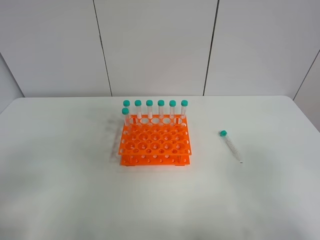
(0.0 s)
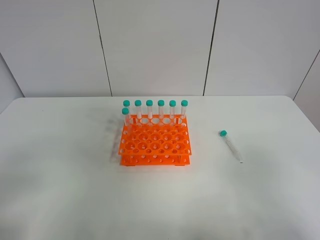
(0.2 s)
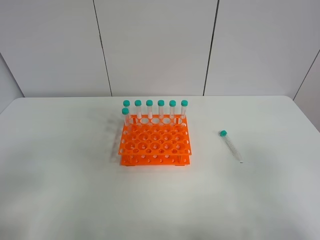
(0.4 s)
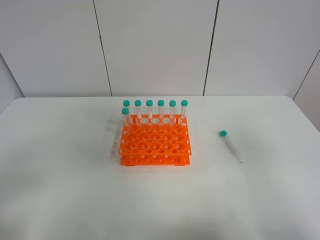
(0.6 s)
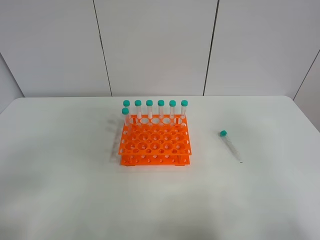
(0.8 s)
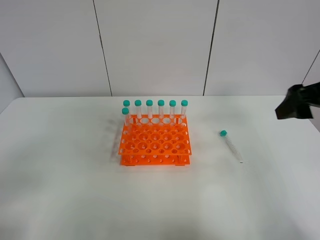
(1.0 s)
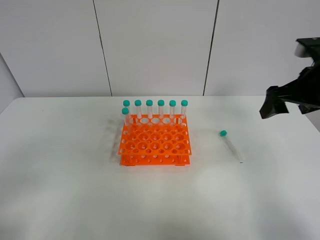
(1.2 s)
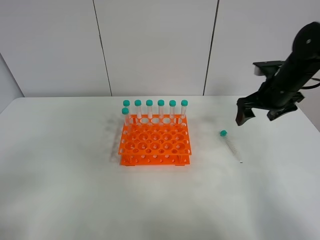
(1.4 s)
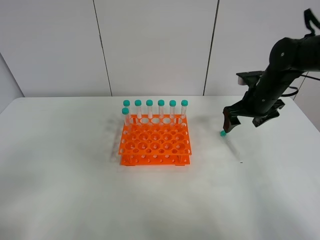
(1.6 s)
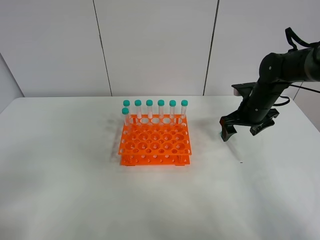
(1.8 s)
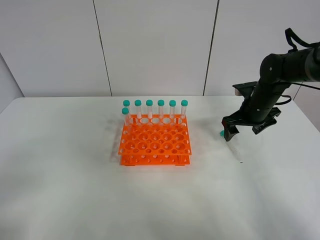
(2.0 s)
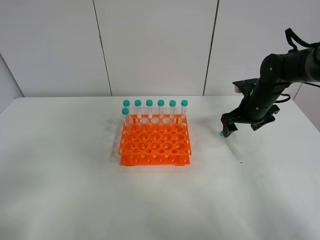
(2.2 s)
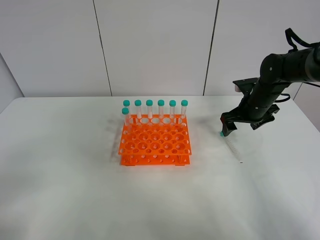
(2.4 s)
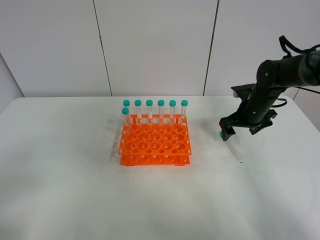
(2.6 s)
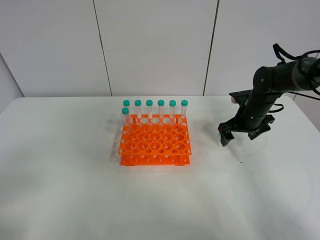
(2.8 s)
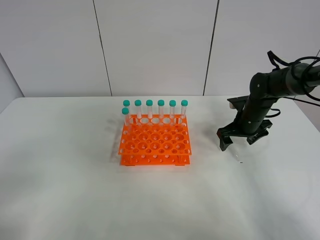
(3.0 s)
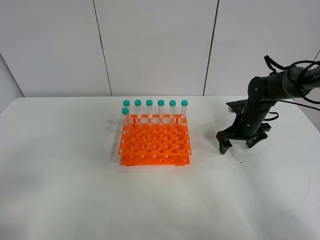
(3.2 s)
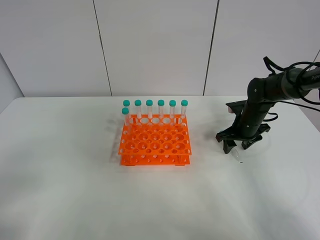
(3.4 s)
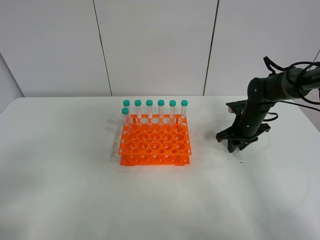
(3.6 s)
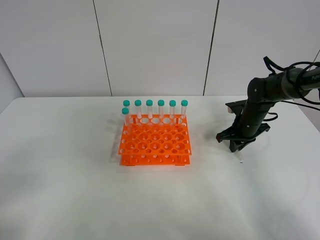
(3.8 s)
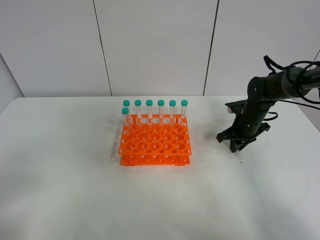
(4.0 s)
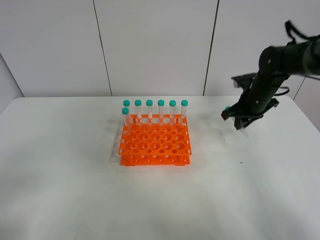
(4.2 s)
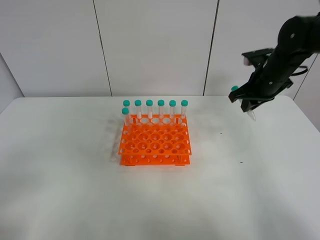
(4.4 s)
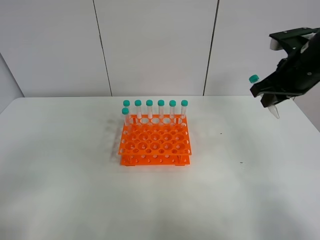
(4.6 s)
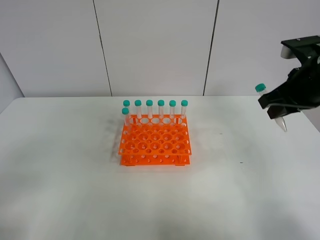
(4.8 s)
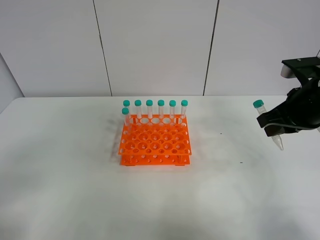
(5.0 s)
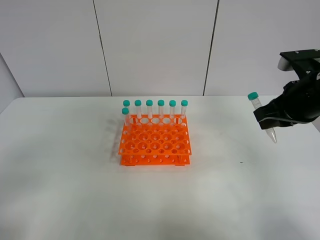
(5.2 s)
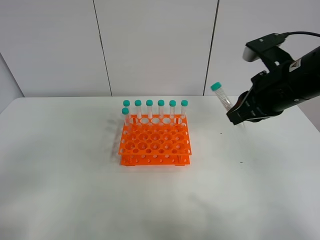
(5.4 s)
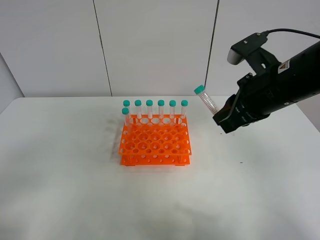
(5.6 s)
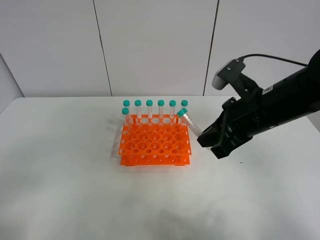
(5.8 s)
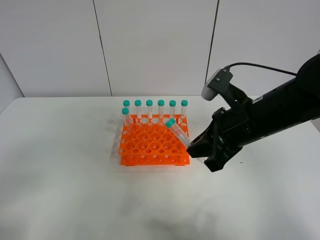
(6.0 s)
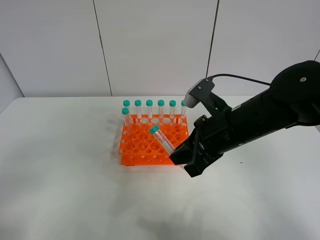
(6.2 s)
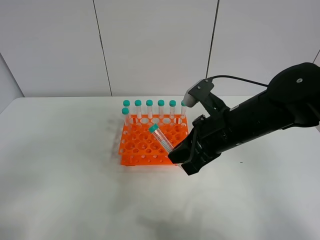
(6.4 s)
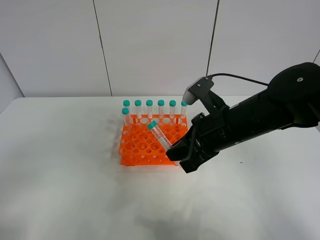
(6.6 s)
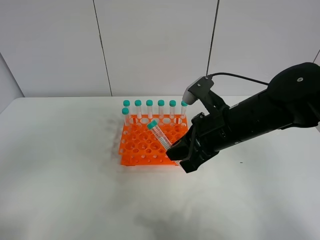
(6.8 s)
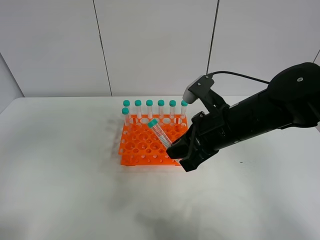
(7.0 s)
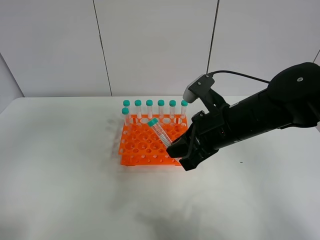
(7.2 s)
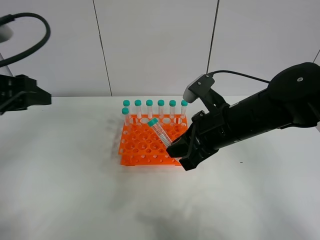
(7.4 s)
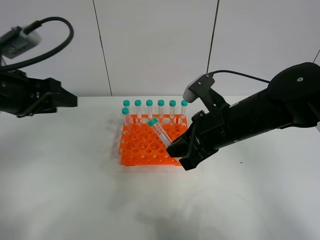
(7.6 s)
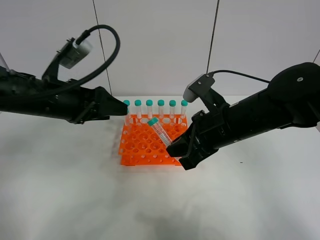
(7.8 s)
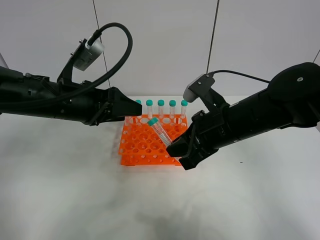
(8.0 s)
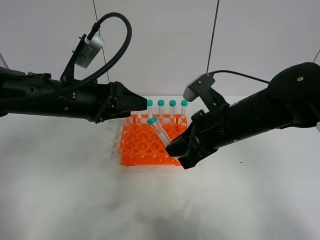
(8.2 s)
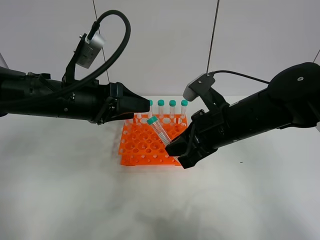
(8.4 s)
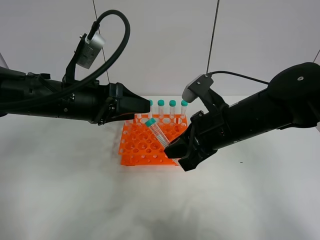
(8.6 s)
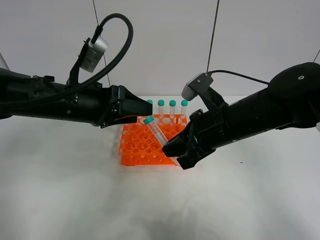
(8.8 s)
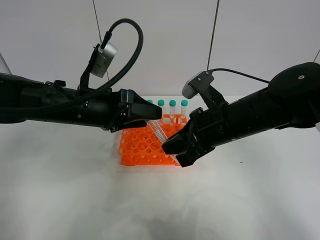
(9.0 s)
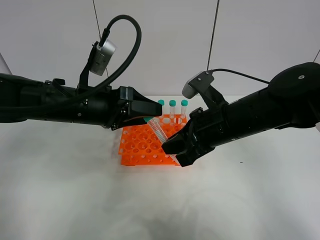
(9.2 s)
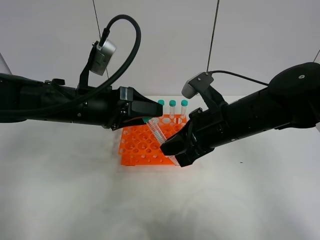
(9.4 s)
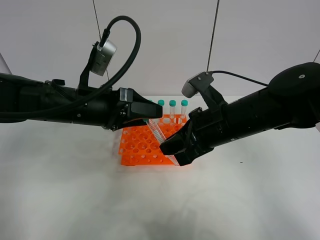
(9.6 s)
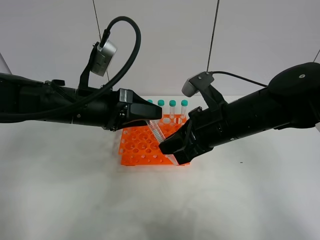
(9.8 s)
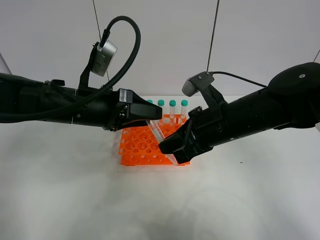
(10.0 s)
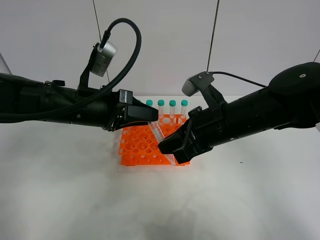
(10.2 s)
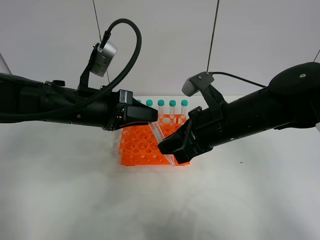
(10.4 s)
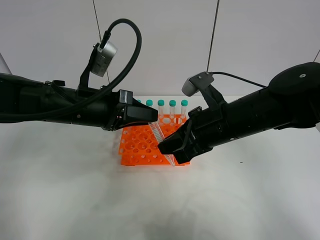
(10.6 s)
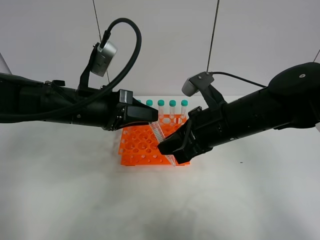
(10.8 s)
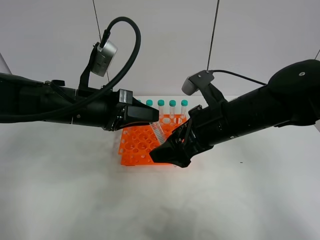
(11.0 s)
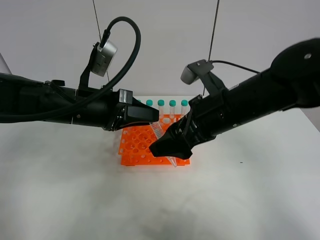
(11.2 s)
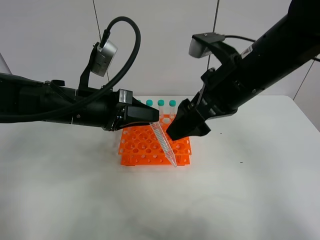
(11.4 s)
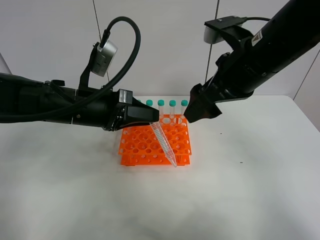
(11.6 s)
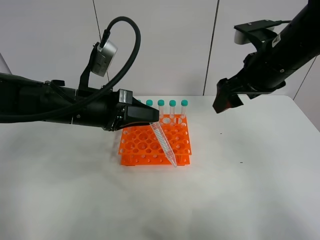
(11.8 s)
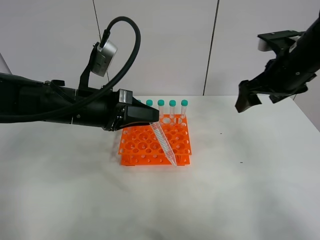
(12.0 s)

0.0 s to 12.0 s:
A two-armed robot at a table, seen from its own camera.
Task of the whole recording: Put the test tube on the table back onto the test tube rack.
Step, 0.0 to 3.8 s: Pick up the test tube with the right gripper.
Step, 4.0 to 10.8 s: Move the test tube from the right gripper to the left gripper.
0.0 to 1.6 s: The right gripper goes some 40 cm forward.
1.6 to 3.0 s: The right gripper moves downward, about 5 cm.
3.0 to 4.4 s: The right gripper is displaced upward by about 15 cm, and closes up.
4.4 to 6.0 s: The right gripper goes approximately 20 cm backward and to the left.
6.0 to 7.6 s: The left gripper shifts roughly 25 cm forward.
7.6 to 9.0 s: The left gripper travels to the right by some 10 cm.
9.0 to 10.4 s: The left gripper closes.
10.4 to 12.0 s: The right gripper is displaced to the right, forward and upward by approximately 20 cm, and opens its fingers.

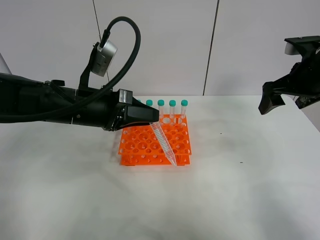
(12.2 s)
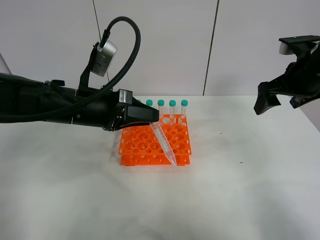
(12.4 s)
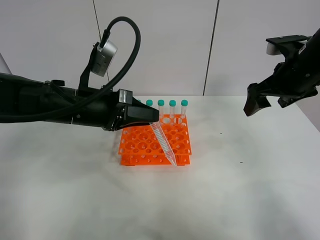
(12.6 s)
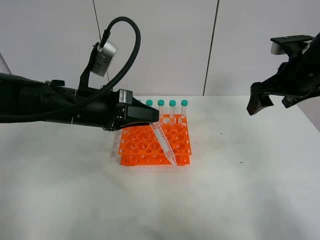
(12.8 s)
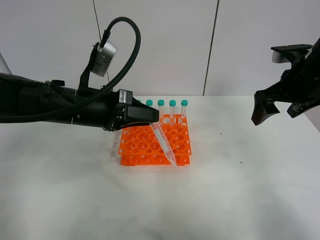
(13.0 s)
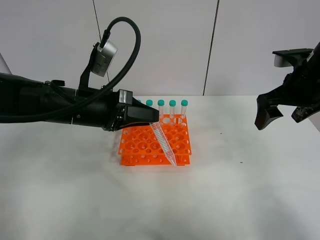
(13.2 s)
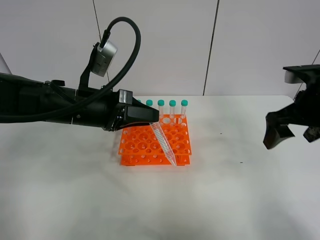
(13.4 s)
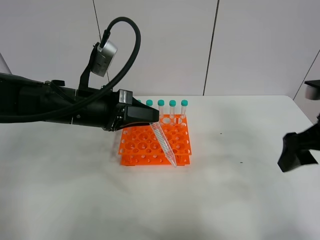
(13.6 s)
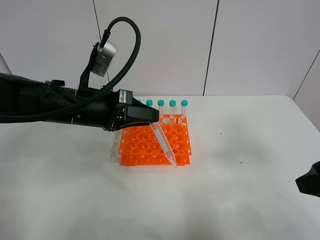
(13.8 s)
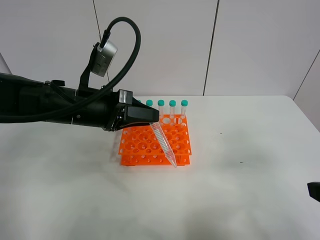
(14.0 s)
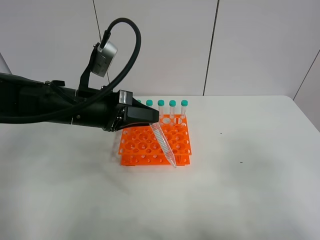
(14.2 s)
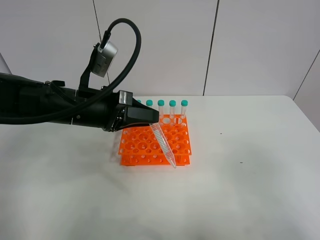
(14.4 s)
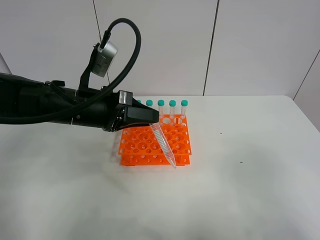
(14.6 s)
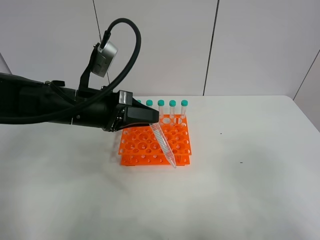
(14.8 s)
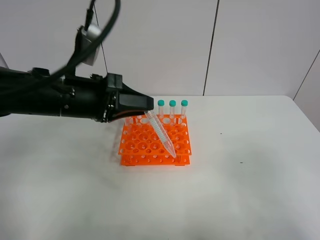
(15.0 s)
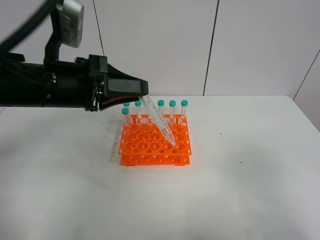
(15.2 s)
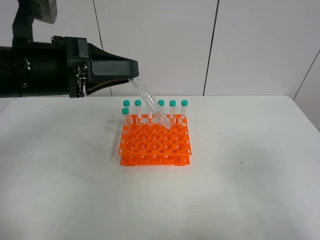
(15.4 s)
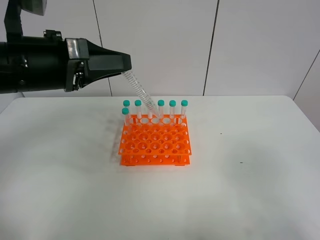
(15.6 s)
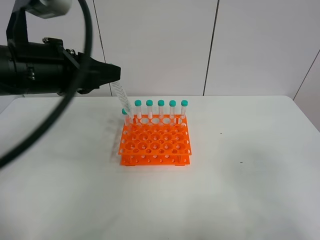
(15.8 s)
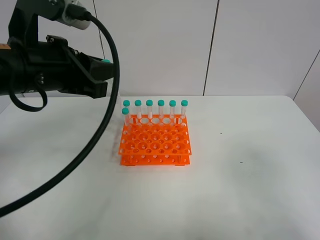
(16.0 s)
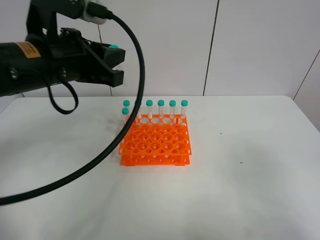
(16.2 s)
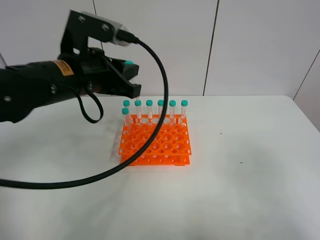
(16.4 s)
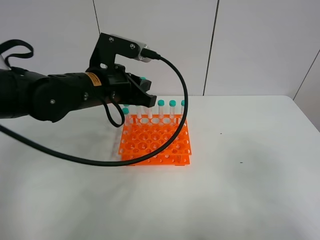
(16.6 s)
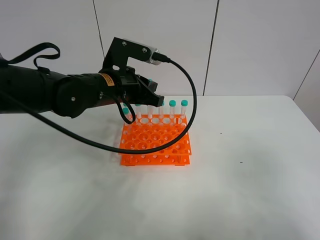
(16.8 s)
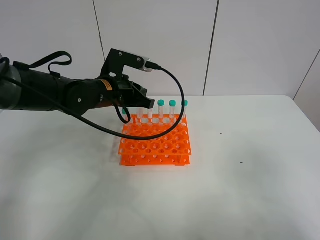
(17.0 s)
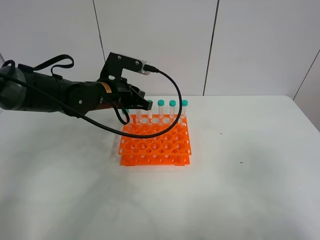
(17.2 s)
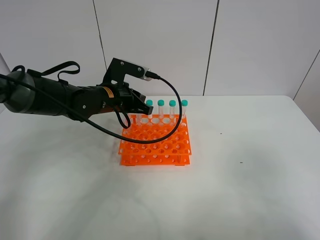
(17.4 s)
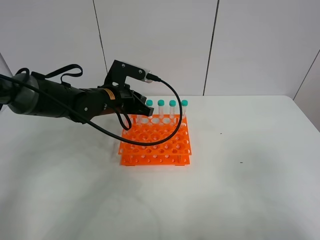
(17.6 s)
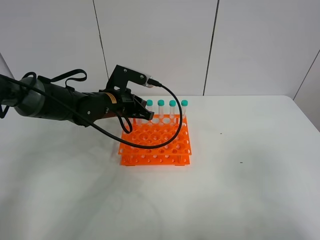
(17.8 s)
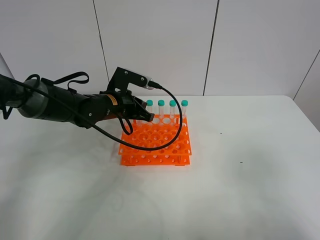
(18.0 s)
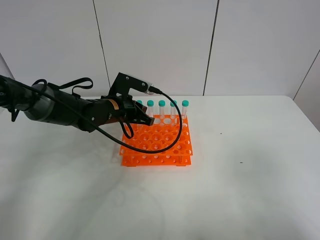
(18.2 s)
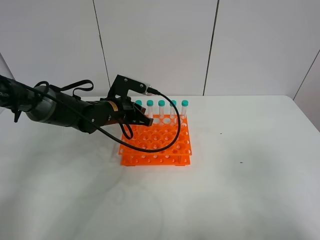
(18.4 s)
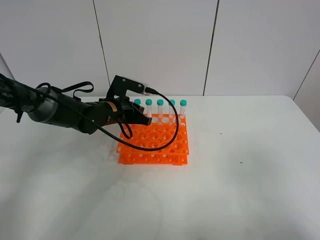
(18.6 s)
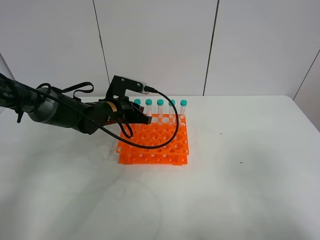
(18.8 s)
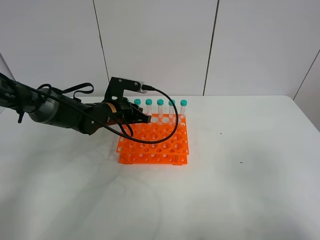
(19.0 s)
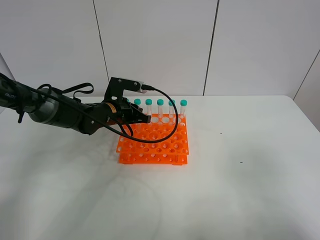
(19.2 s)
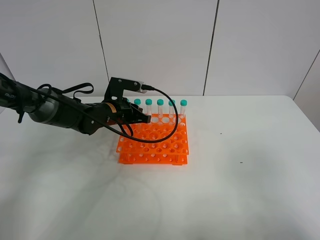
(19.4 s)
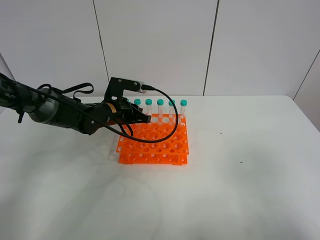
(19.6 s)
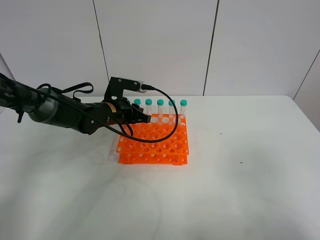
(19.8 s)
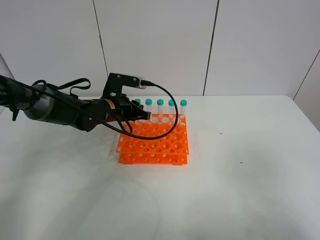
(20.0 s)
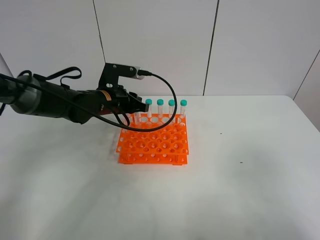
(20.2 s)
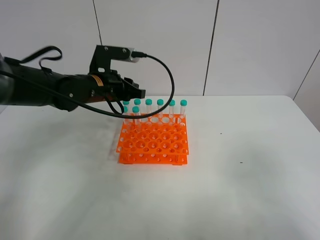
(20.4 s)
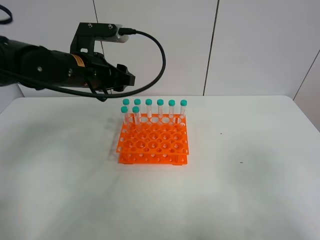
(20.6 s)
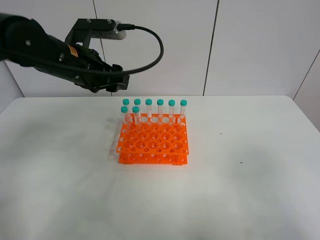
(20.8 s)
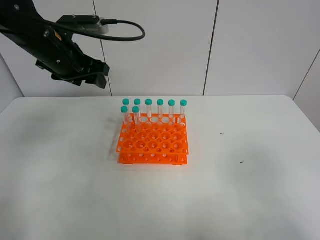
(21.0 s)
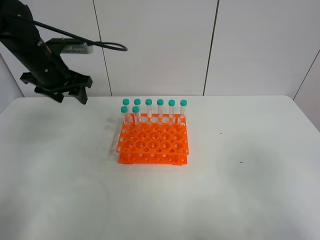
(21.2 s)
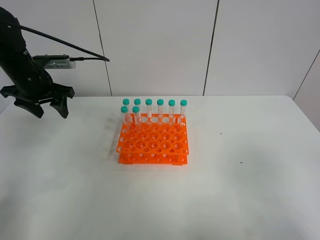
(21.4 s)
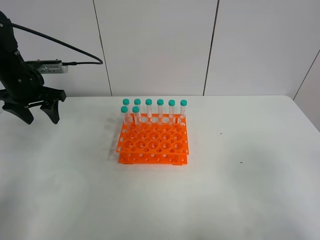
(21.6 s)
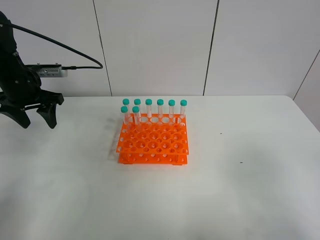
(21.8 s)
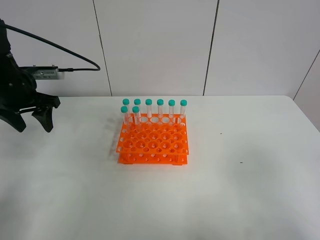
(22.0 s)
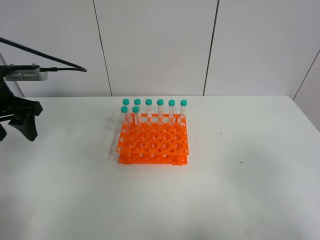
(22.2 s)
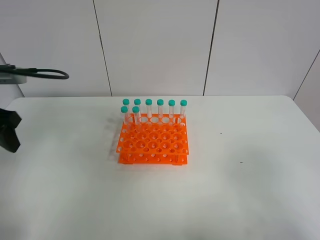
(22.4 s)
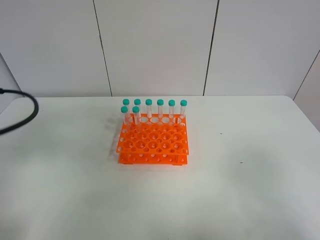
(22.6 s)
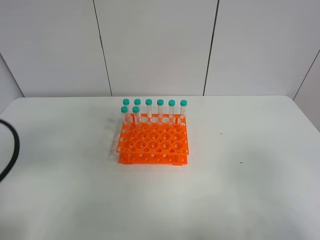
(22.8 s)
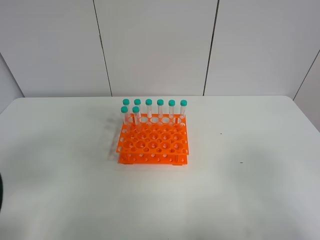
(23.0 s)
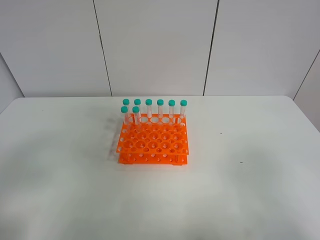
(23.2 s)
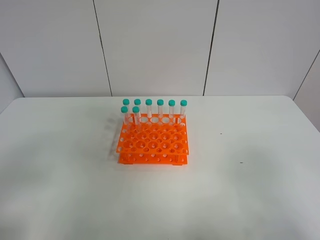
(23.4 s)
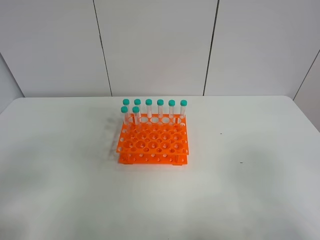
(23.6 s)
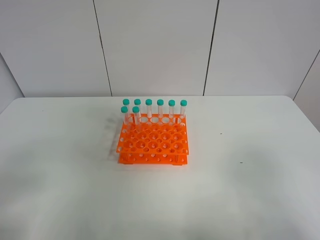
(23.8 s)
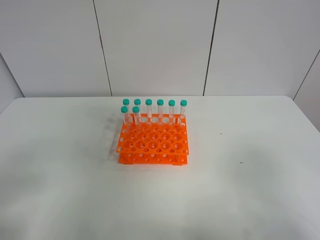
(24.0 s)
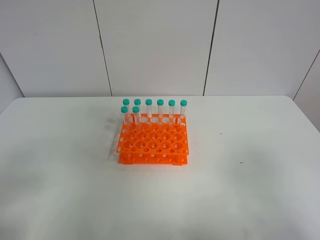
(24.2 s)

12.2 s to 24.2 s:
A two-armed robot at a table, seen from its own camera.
Task of the whole recording: Put the test tube on the table back onto the test tube rack.
Step, 12.2 to 20.2 s: Place the test tube on the test tube rack with the left gripper.
12.2 to 13.8 s: The right gripper shifts approximately 20 cm backward.
13.8 to 15.2 s: The right gripper travels backward by approximately 10 cm. The left gripper moves upward, approximately 5 cm.
15.2 to 16.6 s: The left gripper is displaced forward and to the right by roughly 10 cm.
16.6 to 18.2 s: The left gripper shifts approximately 15 cm downward and forward.
18.2 to 19.8 s: The grippers stay close to where they were, moving slightly.
19.8 to 21.2 s: The left gripper heads to the left and upward, covering approximately 20 cm, and opens up.
21.2 to 22.6 s: The left gripper is displaced backward by some 25 cm.
22.6 to 24.2 s: The left gripper is displaced backward by approximately 15 cm.
